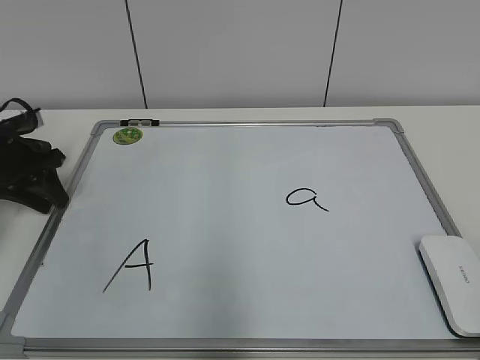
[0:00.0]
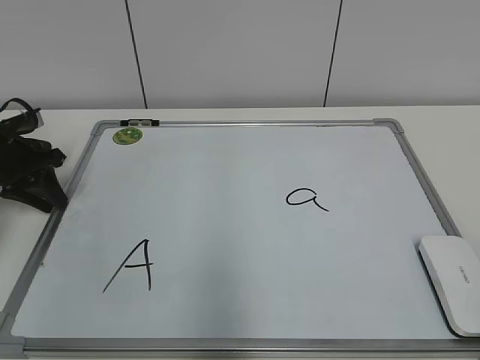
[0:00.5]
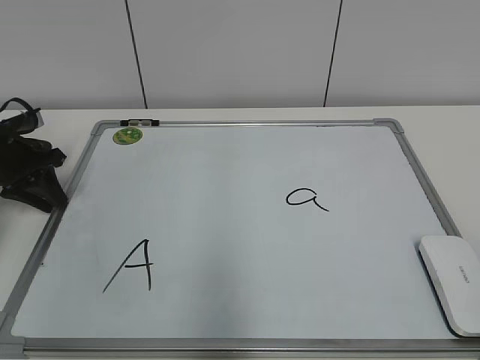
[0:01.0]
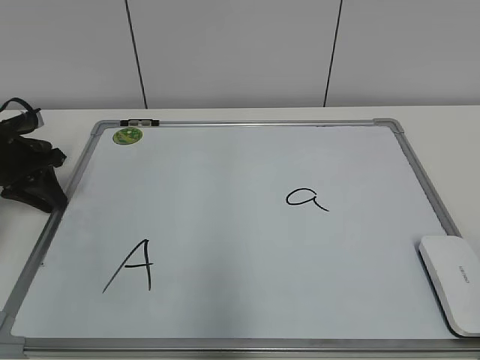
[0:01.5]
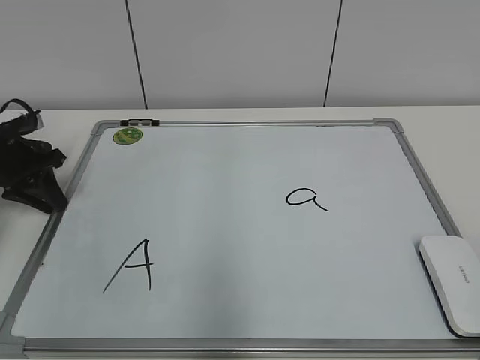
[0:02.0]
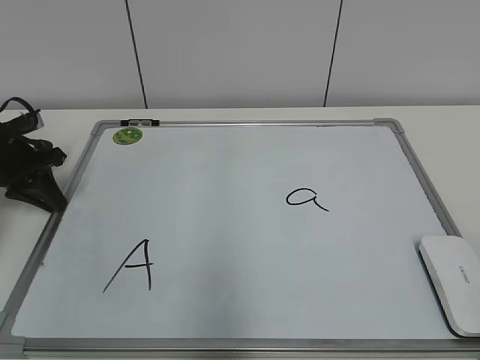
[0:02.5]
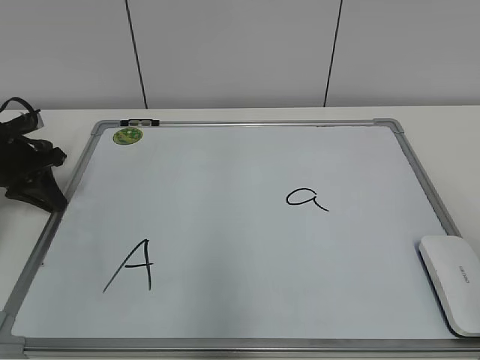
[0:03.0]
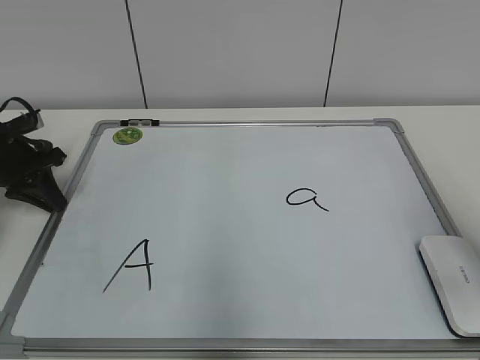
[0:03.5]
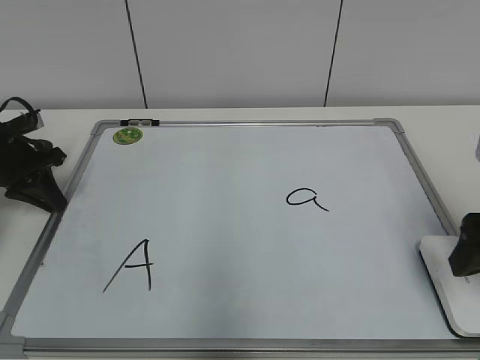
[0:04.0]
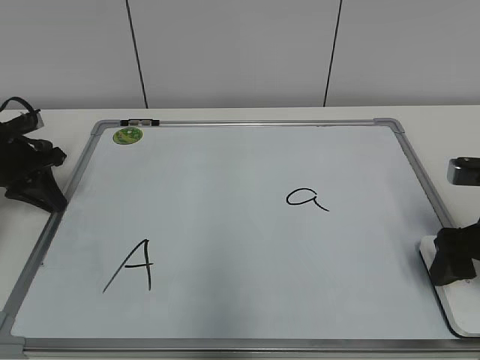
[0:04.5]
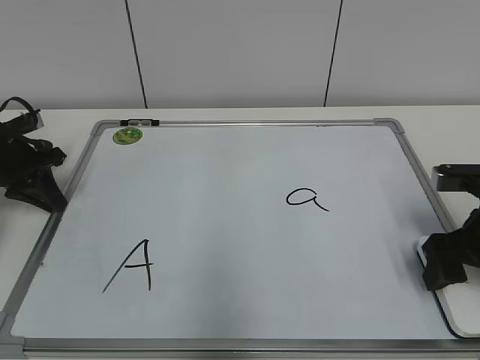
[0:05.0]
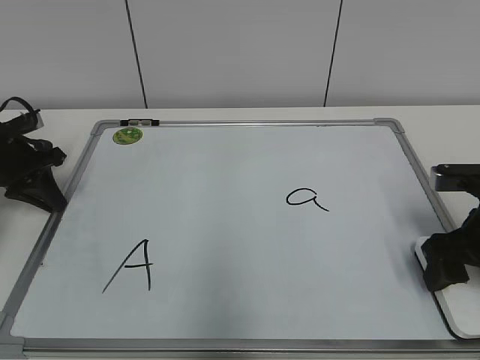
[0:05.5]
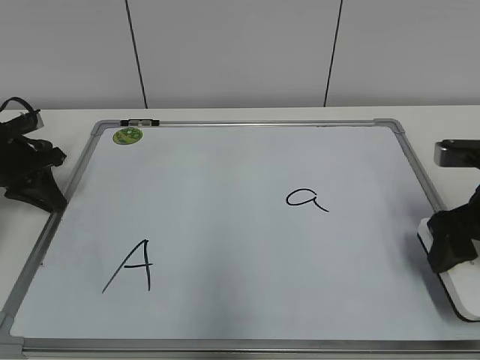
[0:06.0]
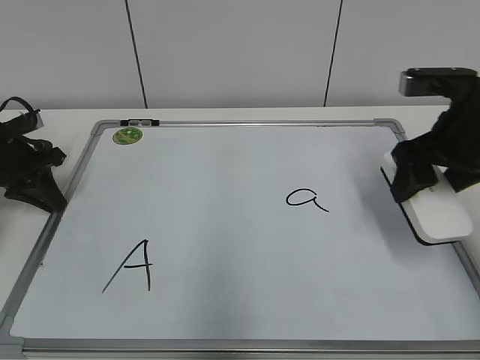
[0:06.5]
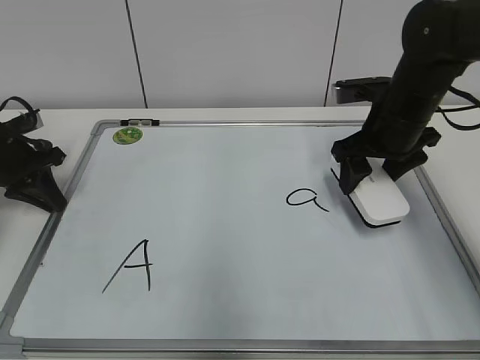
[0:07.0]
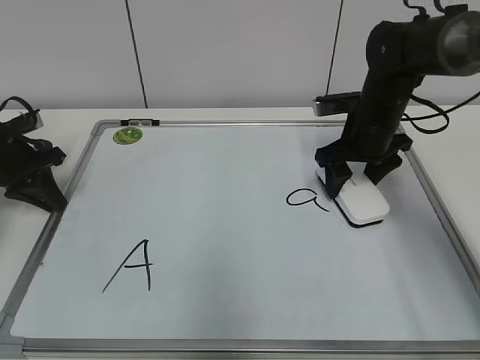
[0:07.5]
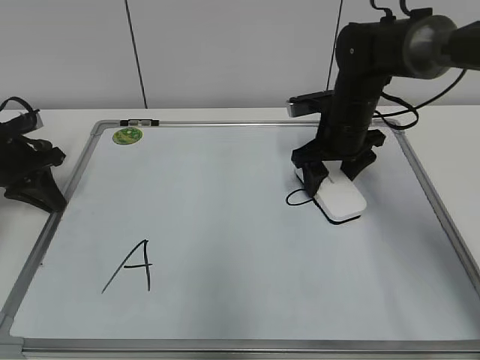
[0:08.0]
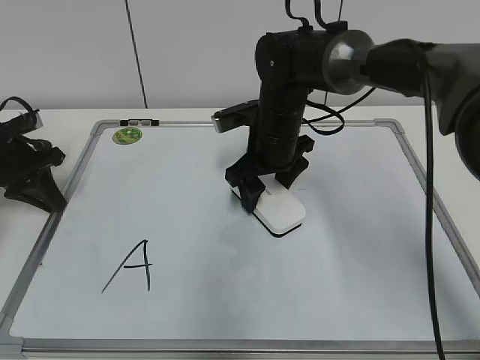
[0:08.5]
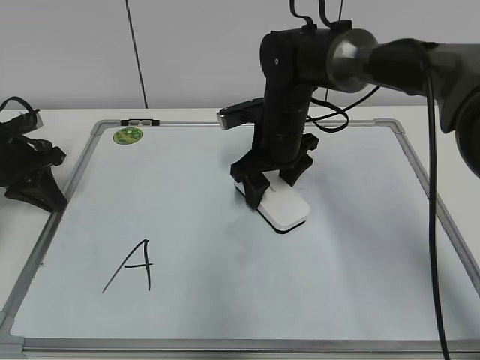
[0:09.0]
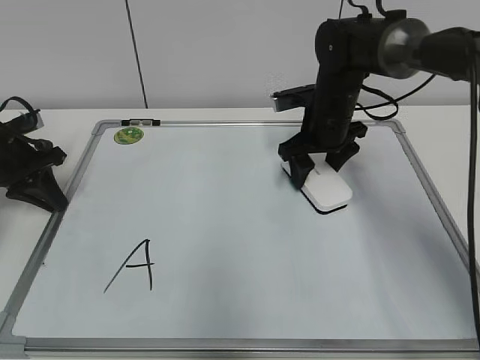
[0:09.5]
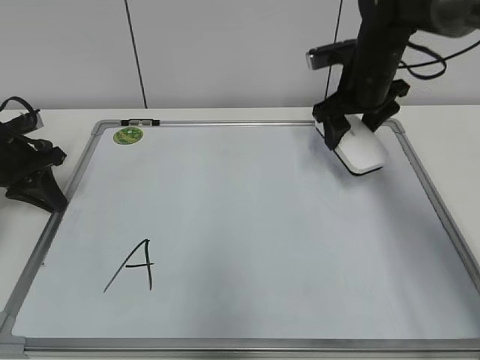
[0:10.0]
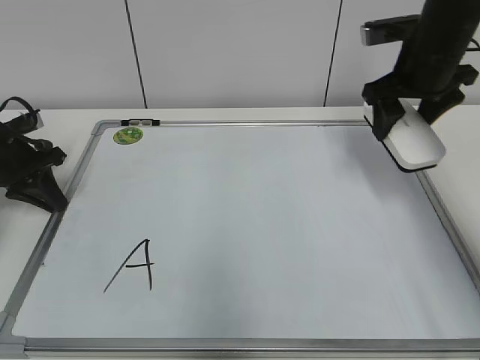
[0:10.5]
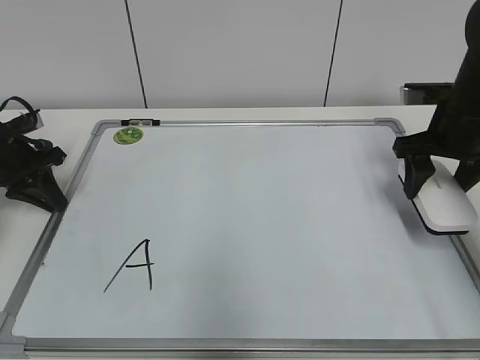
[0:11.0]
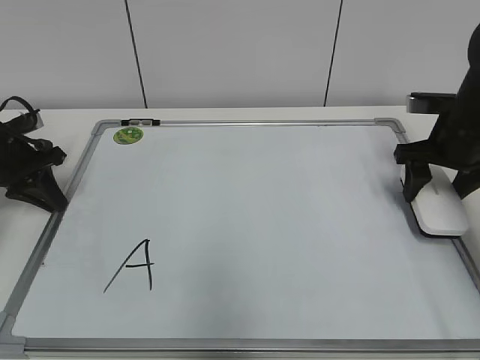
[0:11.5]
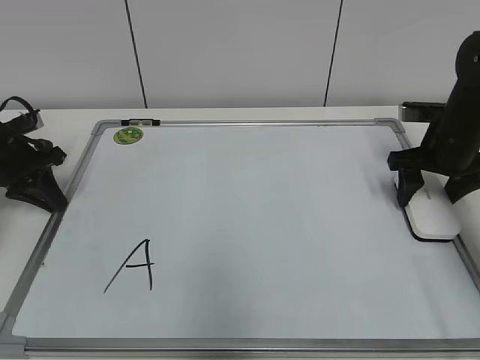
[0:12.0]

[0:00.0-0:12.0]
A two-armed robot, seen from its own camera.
Task of the whole recording: pick up the eraser on the blackboard and erase the letter "a".
Step, 0:02.5 to 0:05.0: Grab the eraser with your right hand.
Step, 0:05.5 to 0:09.5: Erase the letter a with your right hand.
0:00.0 to 0:02.0: Both grippers stay about where they are.
0:02.0 to 0:04.0: The right gripper heads forward, covering about 25 cm, and opens its fingers.
0:04.0 to 0:06.0: The right gripper closes.
0:06.0 to 0:08.0: The right gripper travels forward and to the left by about 20 cm.
0:08.0 to 0:10.0: The right gripper shifts about 5 cm upward, and moves roughly 10 cm to the left and comes back.
0:10.0 to 0:12.0: The right gripper is displaced to the right and backward by some 10 cm.

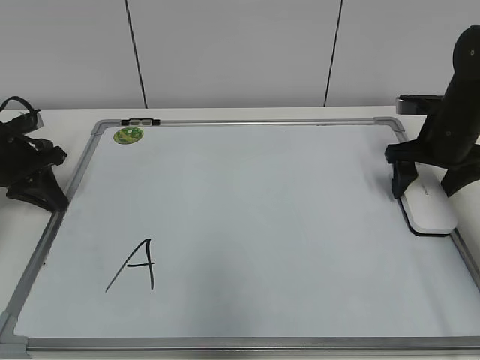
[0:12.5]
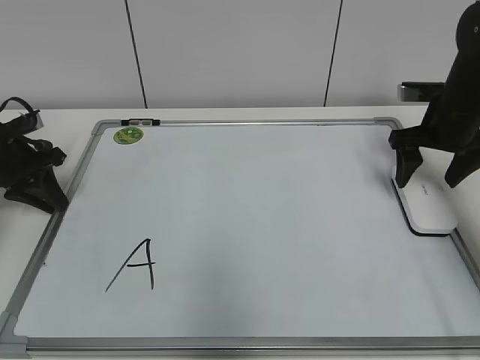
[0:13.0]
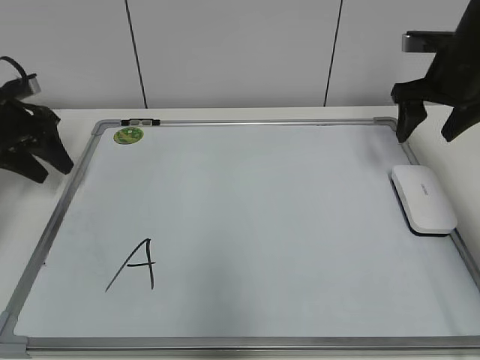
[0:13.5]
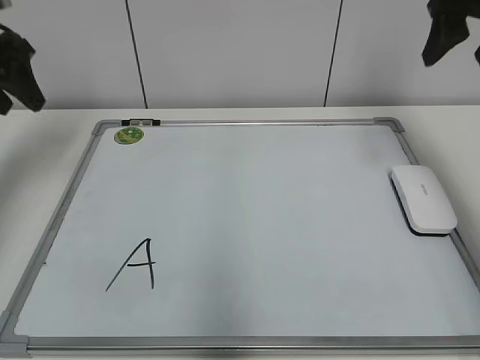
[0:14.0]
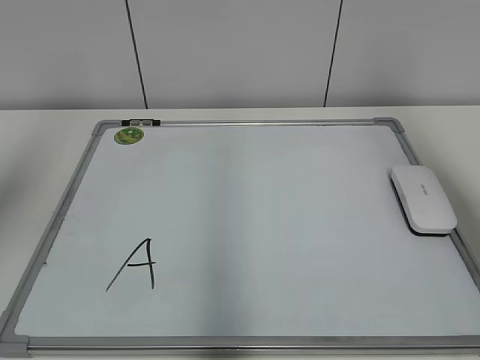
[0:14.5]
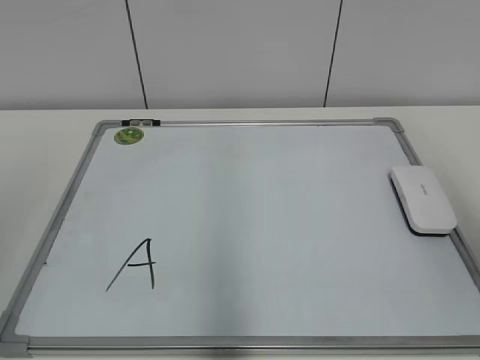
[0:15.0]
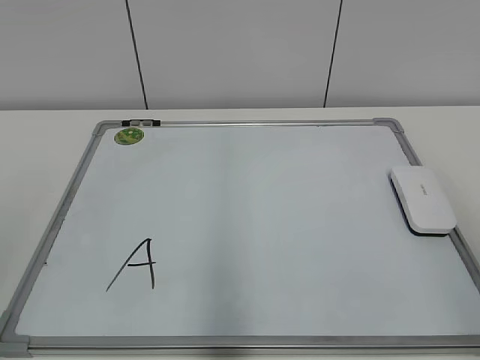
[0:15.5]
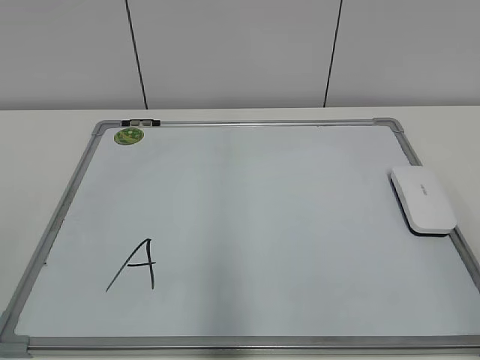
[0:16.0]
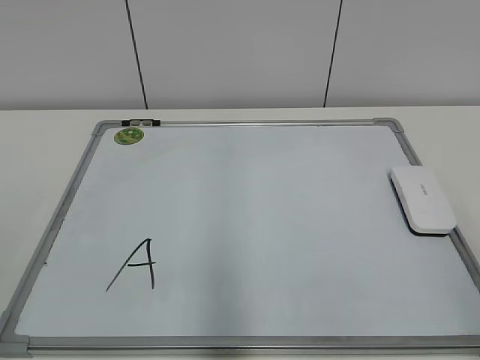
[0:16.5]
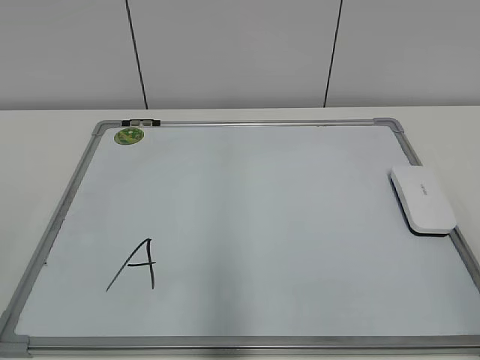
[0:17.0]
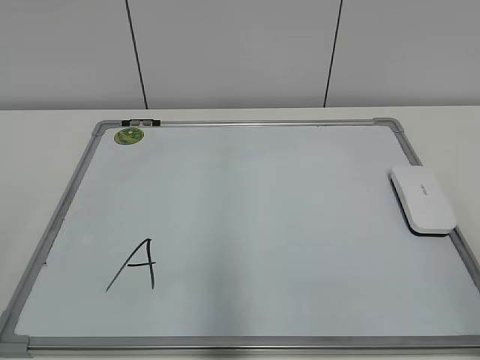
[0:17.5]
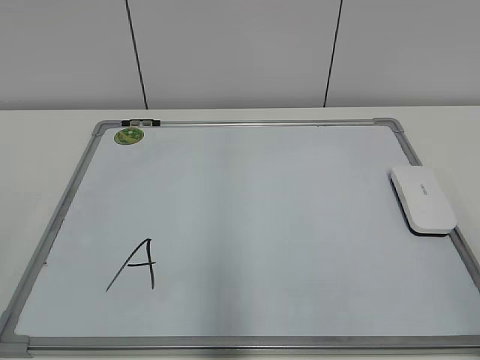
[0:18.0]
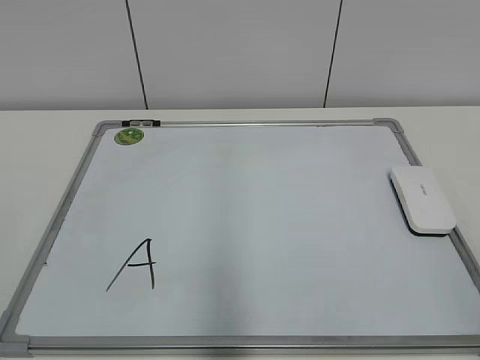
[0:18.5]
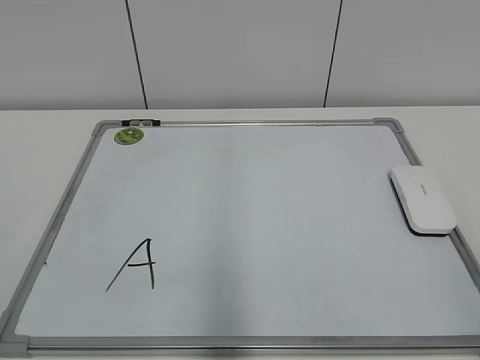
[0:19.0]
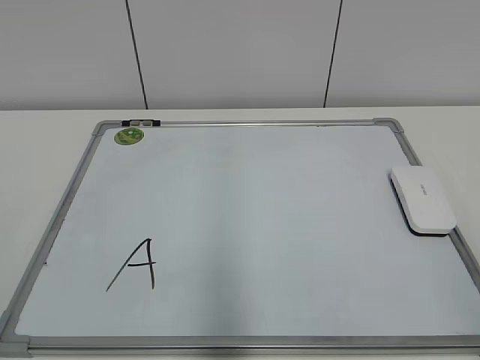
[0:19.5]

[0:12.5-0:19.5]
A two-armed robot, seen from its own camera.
Task of the whole recording: pick up the eraser on the blackboard and erase the letter "a".
0:12.5 to 0:14.5: Both grippers move upward and backward, some 30 cm. The left gripper opens up.
0:14.5 to 0:16.0: Both grippers travel together backward and downward, roughly 25 cm.
